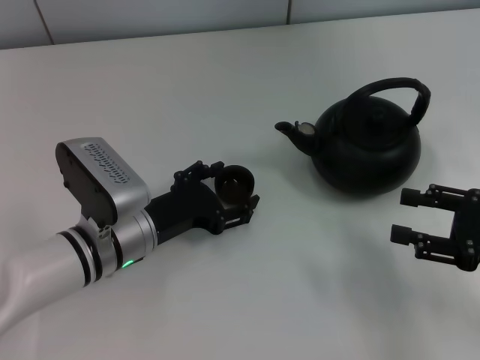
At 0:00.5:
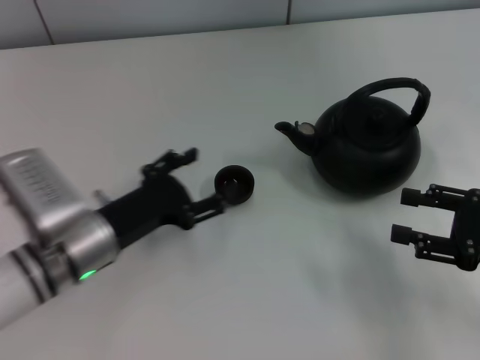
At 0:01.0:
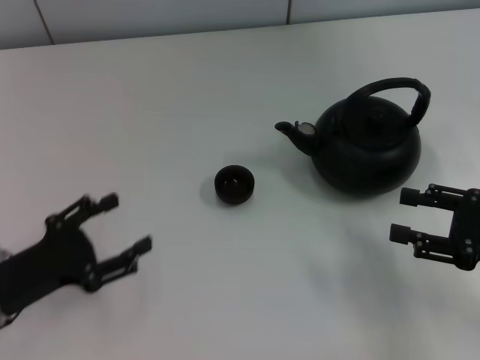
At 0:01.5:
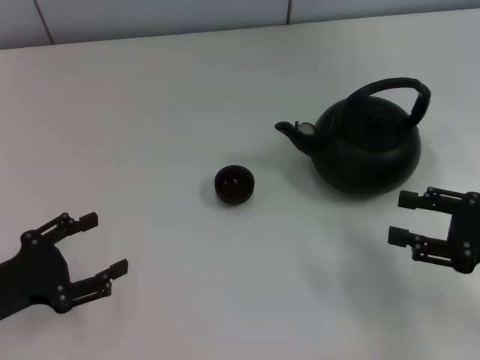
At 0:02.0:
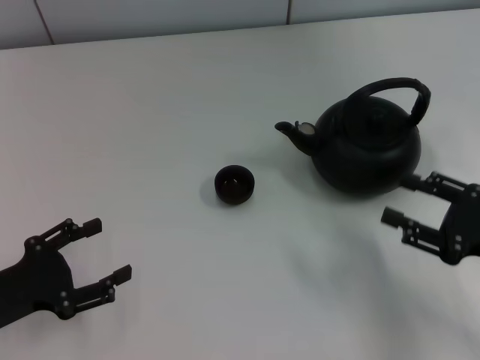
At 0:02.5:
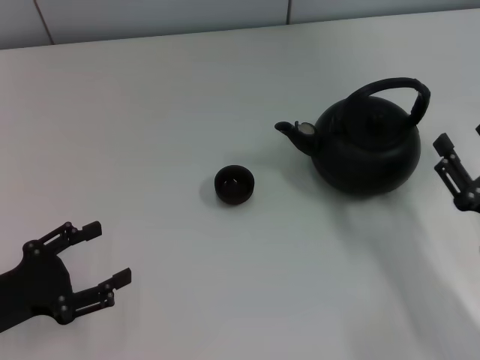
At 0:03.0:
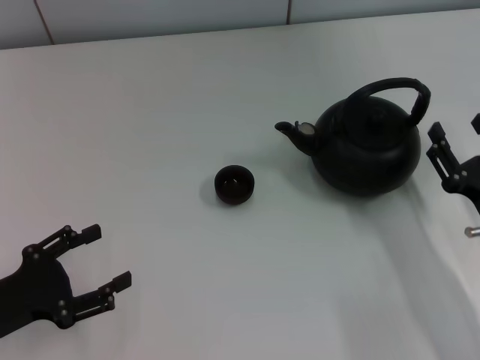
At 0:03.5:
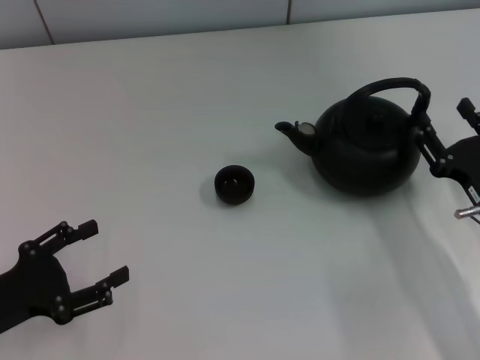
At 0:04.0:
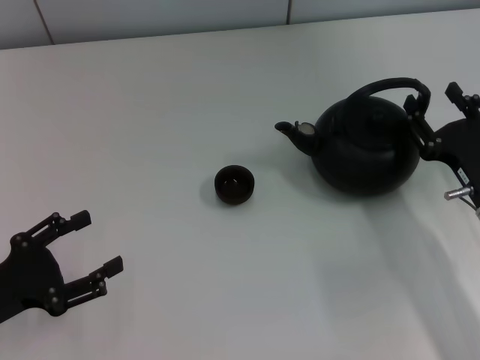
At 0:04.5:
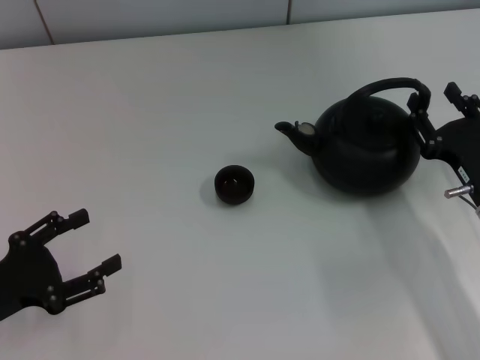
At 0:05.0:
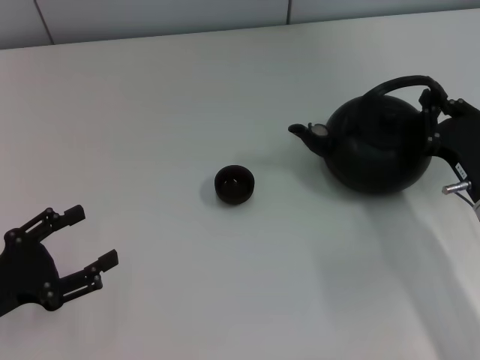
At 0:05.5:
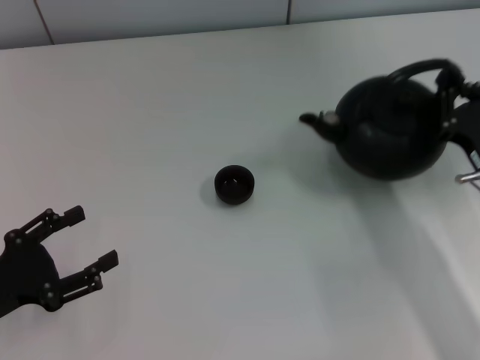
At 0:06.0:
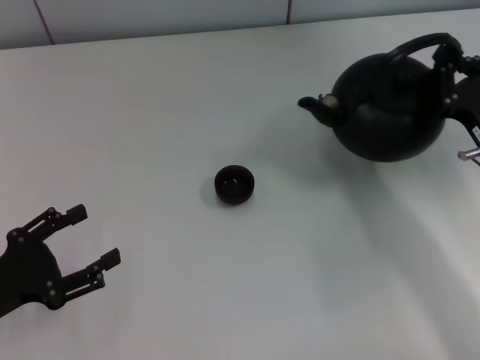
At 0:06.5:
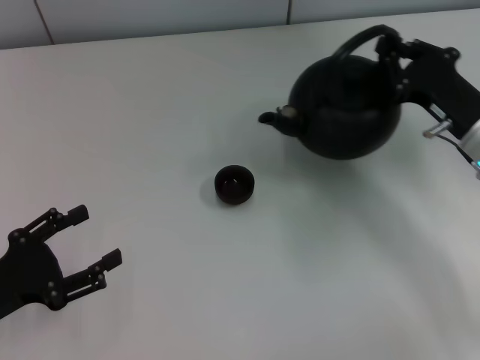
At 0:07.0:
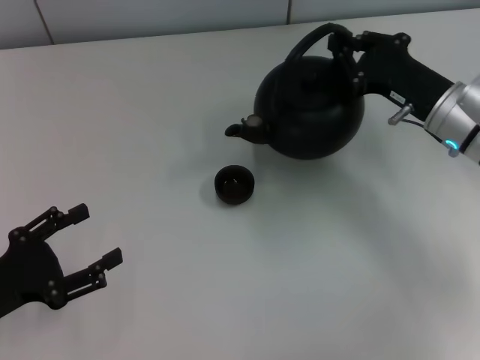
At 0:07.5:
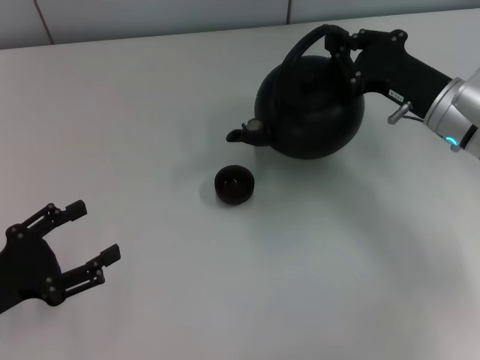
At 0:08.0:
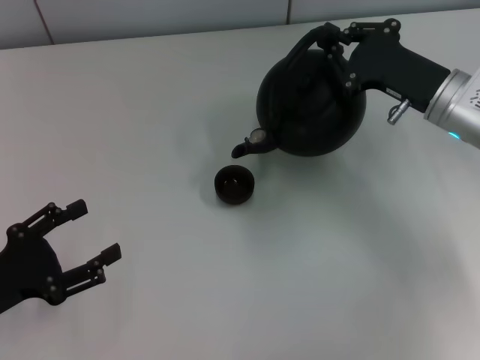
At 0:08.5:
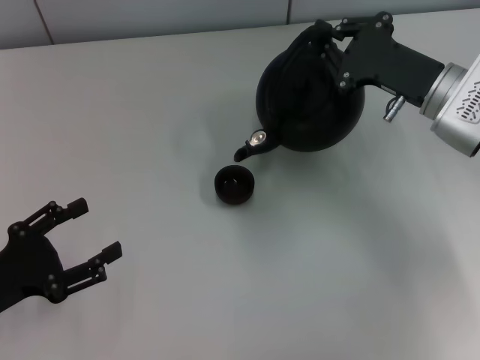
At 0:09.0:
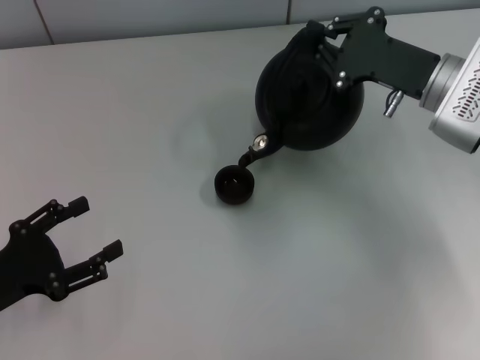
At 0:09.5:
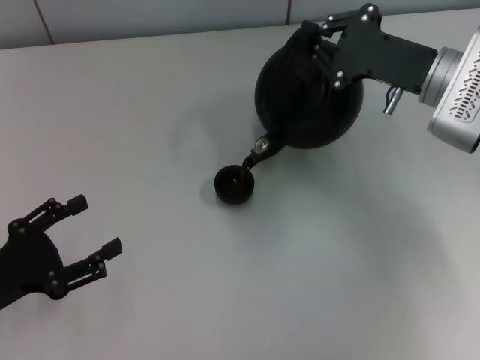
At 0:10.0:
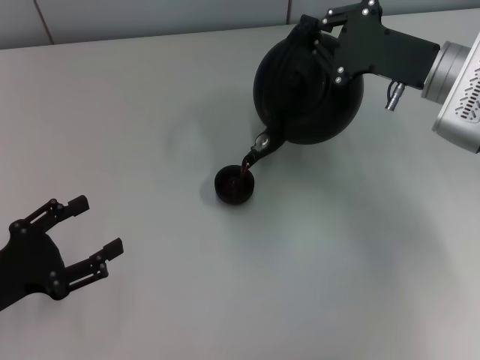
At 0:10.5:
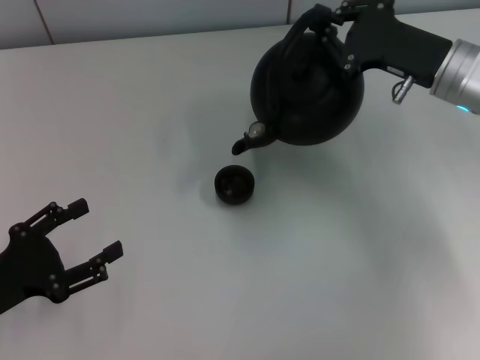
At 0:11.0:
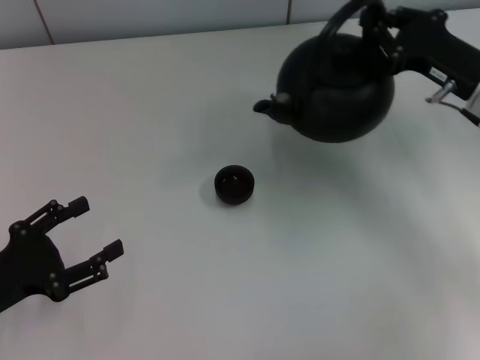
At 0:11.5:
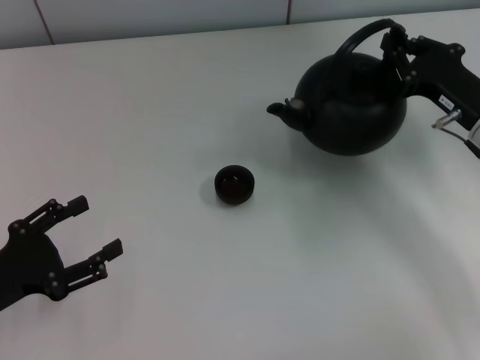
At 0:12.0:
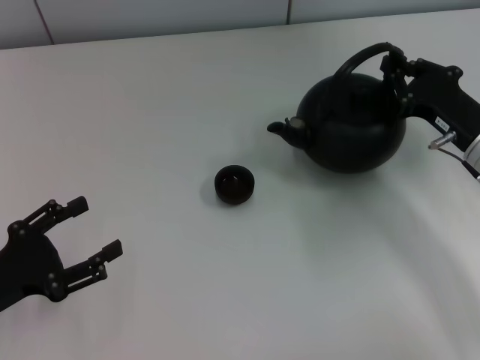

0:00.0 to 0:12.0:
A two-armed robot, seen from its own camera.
Task of the whole recording: Grasp the handle of the teapot with one hand and pour tea into the teacup.
Step, 0:02.0 to 0:05.5: Pick up the teapot with the right gripper.
0:00.0 to 0:02.0: The left gripper is displaced to the left and backward by roughly 20 cm.
0:02.0 to 0:04.0: The right gripper shifts roughly 5 cm forward.
0:04.0 to 0:06.0: The right gripper closes up.
0:06.0 to 0:08.0: The right gripper shifts roughly 10 cm forward.
0:10.0 to 0:12.0: The right gripper shifts roughly 10 cm downward and backward.

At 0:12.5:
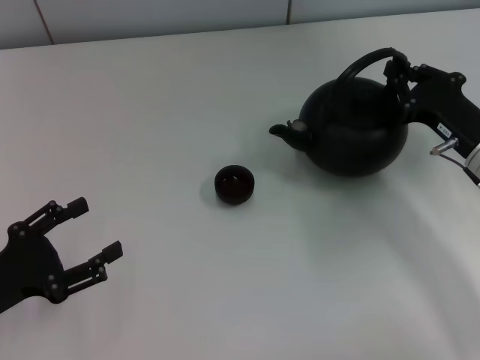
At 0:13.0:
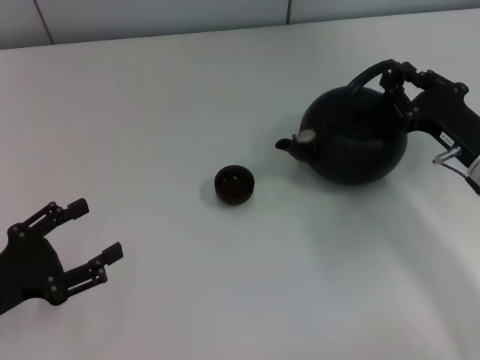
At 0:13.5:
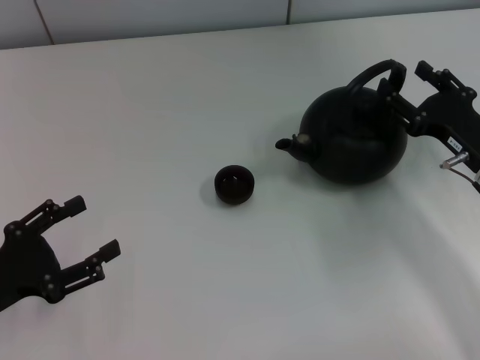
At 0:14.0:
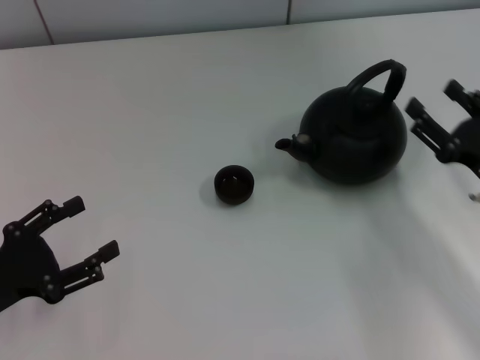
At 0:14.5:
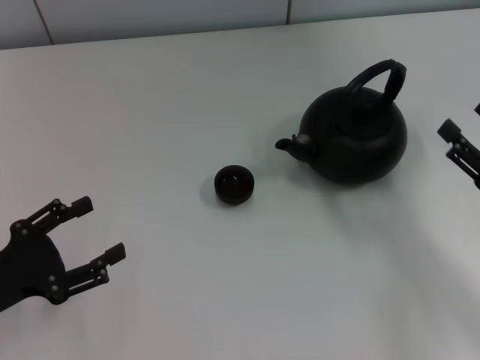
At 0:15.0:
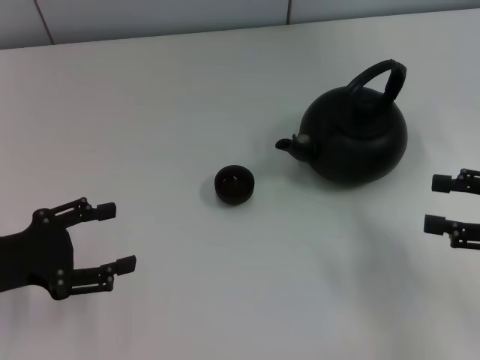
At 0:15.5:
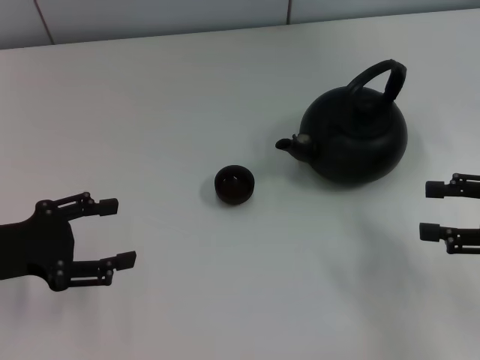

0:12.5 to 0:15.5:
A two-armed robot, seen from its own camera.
Task of the whole recording: Grasp the handle of the teapot with one hand and pour tea into the teacup.
Step, 0:12.5 to 0:14.0: Put down the teapot with the right gripper.
0:12.5 to 0:14.0: The right gripper goes approximately 5 cm backward, and opens up.
0:14.0 to 0:15.5: The left gripper heads forward, covering about 5 cm; the right gripper moves upward and to the right, some 10 cm.
